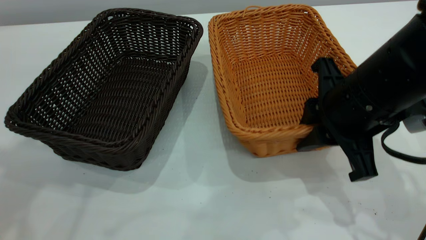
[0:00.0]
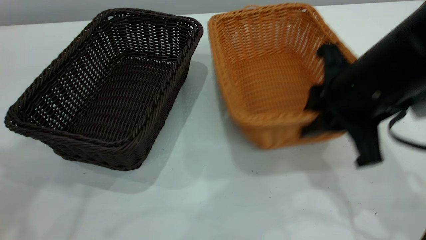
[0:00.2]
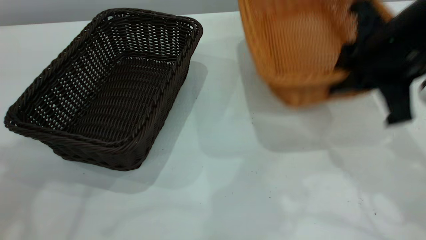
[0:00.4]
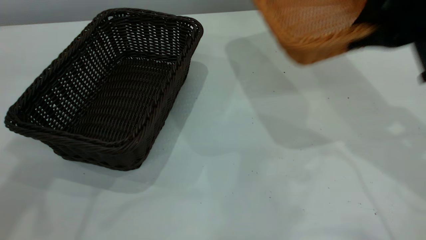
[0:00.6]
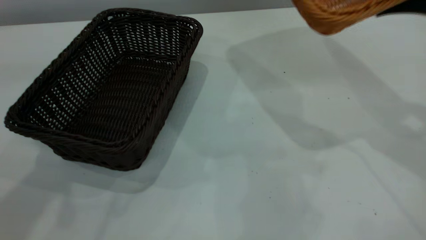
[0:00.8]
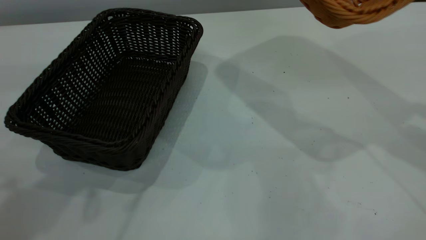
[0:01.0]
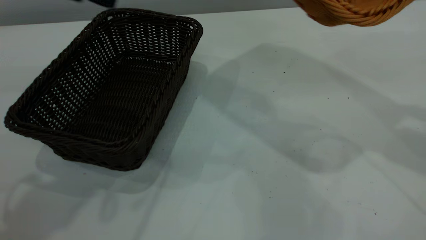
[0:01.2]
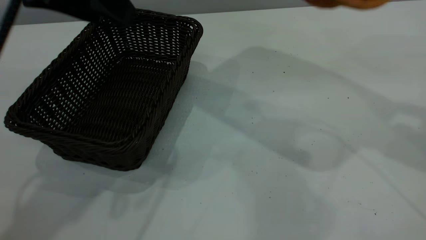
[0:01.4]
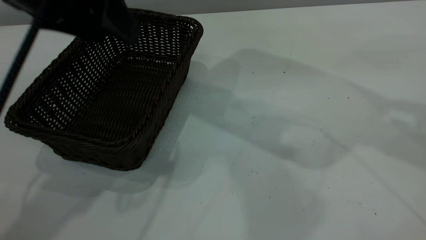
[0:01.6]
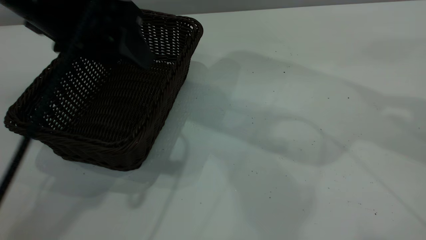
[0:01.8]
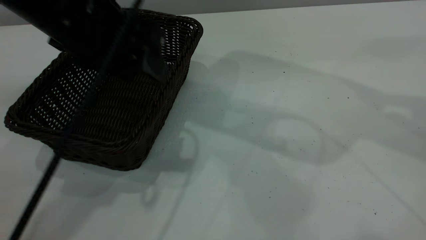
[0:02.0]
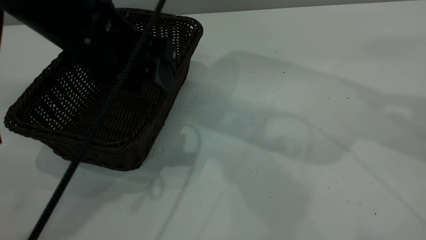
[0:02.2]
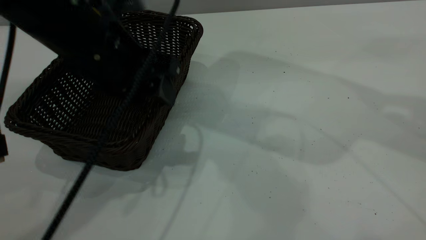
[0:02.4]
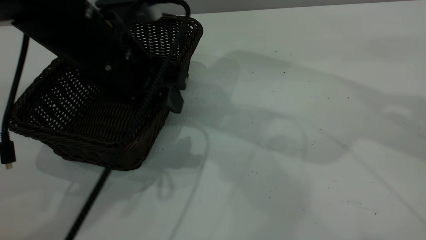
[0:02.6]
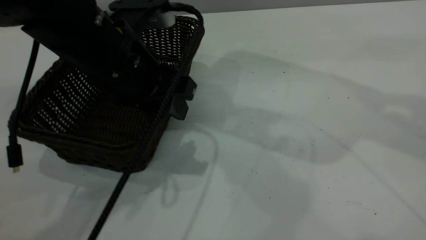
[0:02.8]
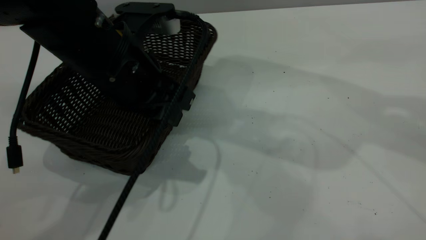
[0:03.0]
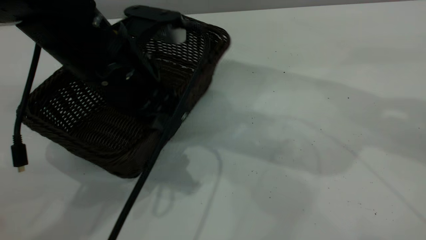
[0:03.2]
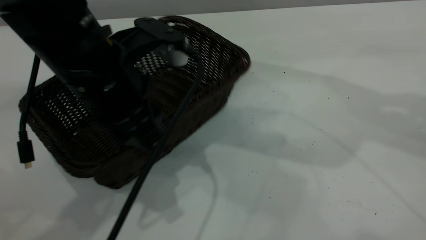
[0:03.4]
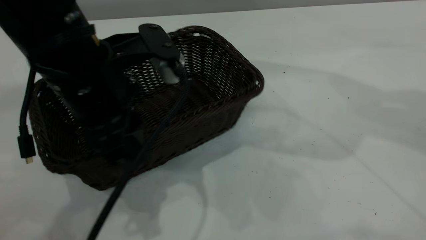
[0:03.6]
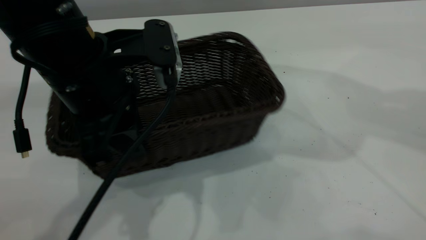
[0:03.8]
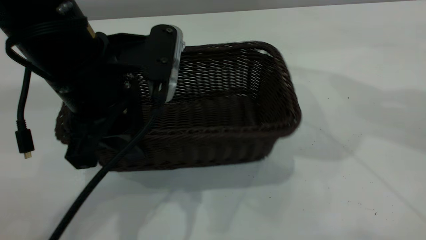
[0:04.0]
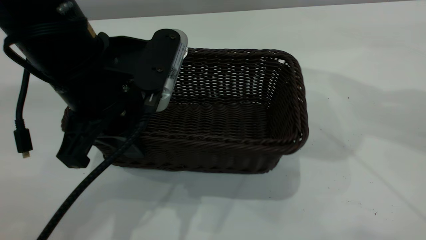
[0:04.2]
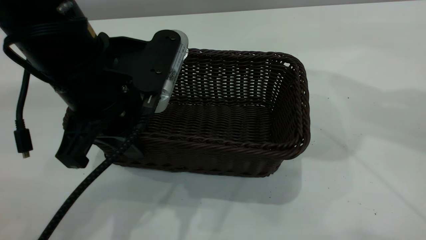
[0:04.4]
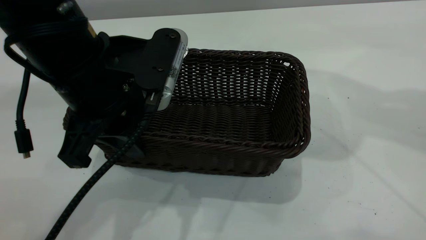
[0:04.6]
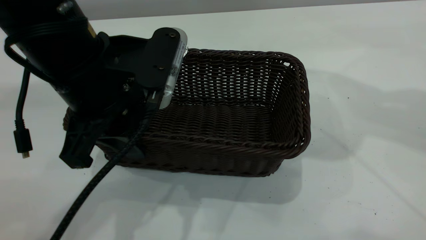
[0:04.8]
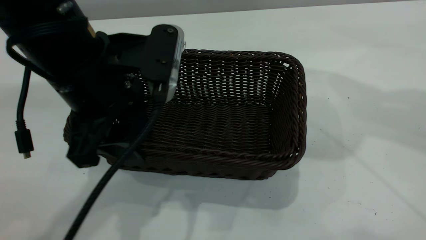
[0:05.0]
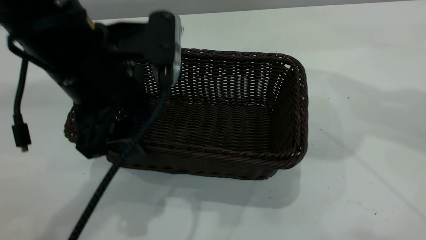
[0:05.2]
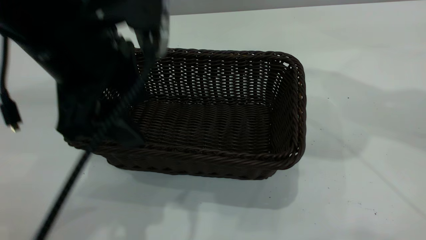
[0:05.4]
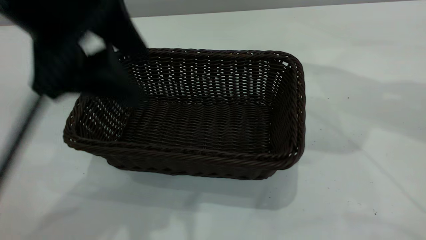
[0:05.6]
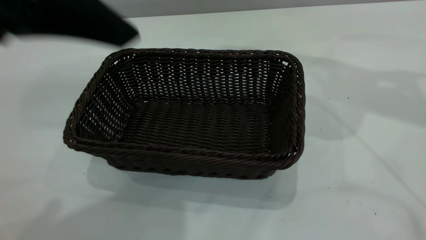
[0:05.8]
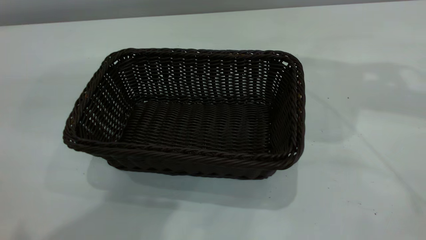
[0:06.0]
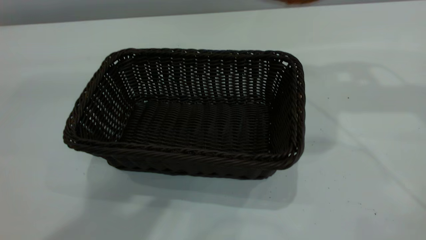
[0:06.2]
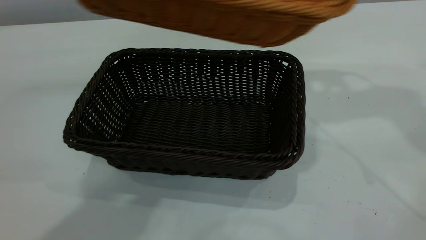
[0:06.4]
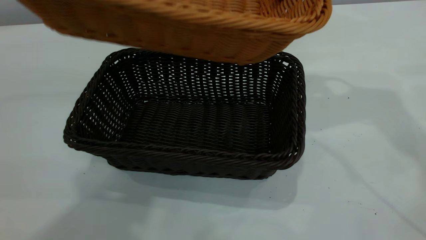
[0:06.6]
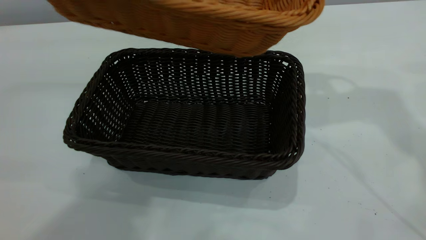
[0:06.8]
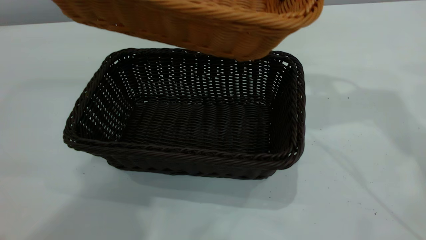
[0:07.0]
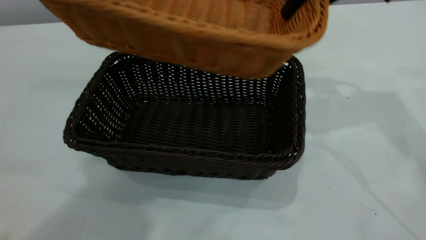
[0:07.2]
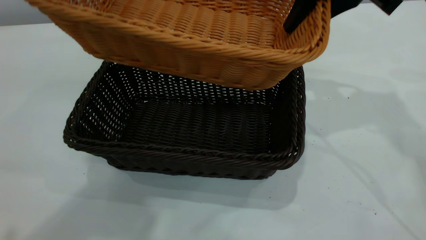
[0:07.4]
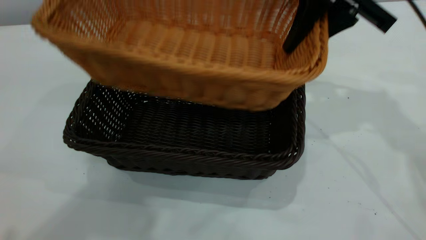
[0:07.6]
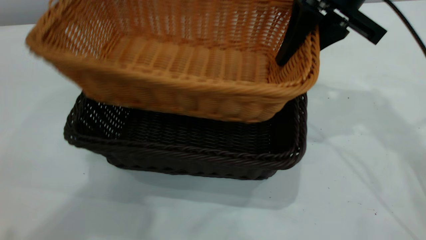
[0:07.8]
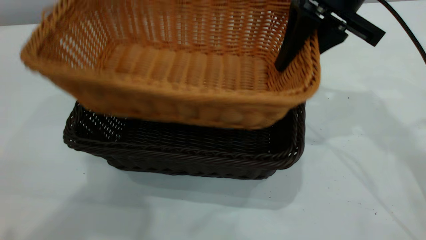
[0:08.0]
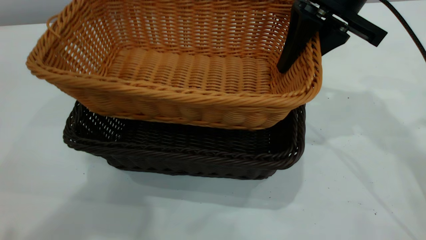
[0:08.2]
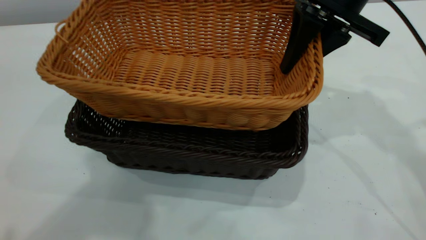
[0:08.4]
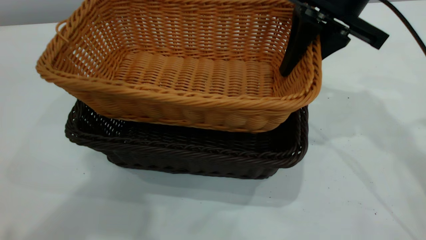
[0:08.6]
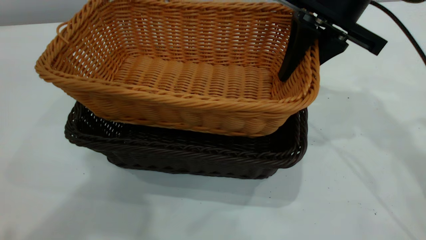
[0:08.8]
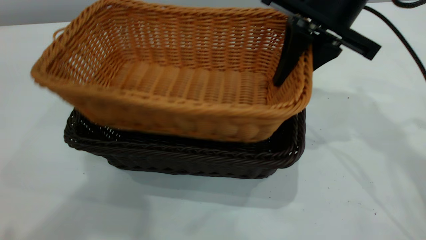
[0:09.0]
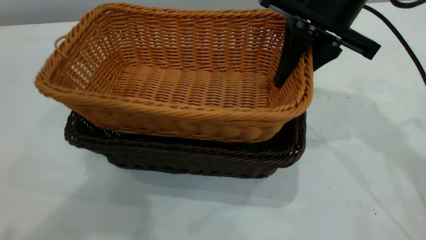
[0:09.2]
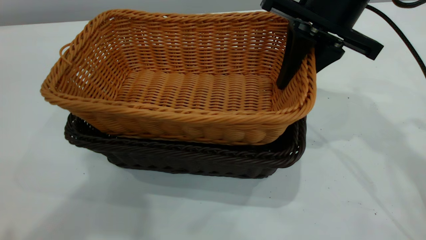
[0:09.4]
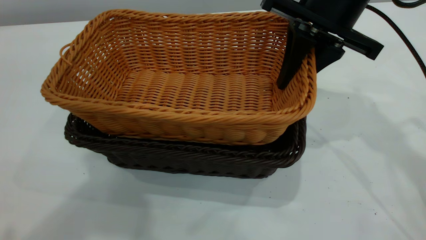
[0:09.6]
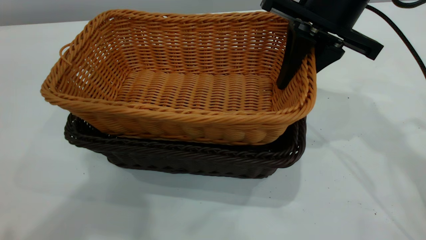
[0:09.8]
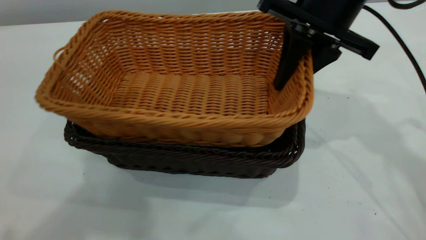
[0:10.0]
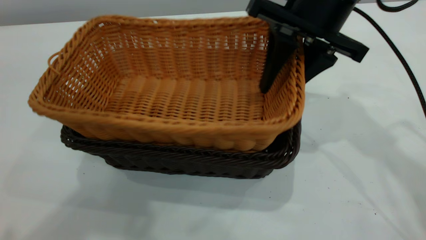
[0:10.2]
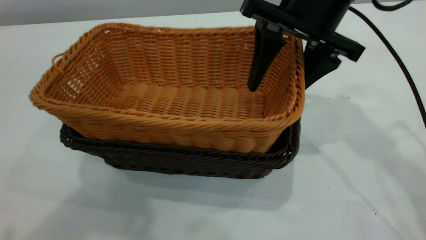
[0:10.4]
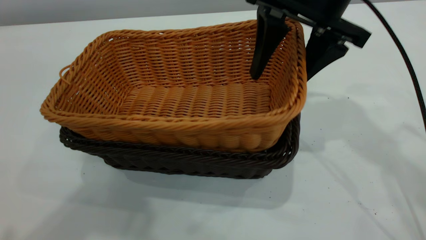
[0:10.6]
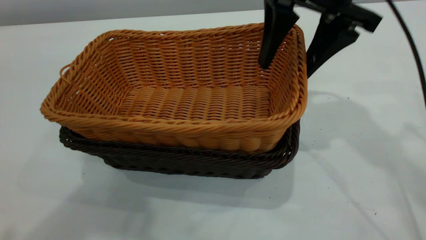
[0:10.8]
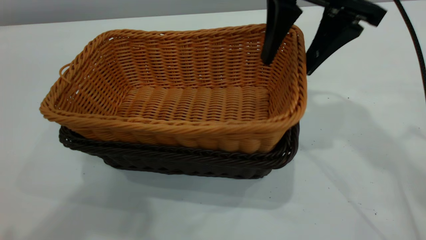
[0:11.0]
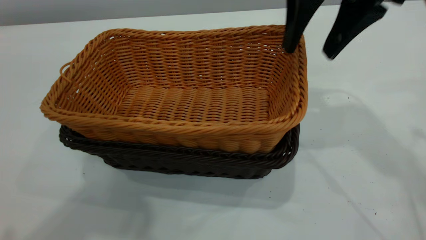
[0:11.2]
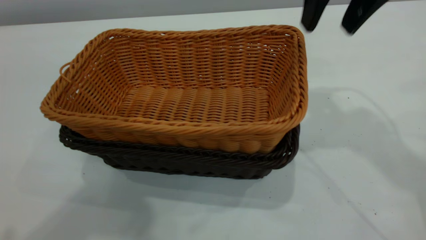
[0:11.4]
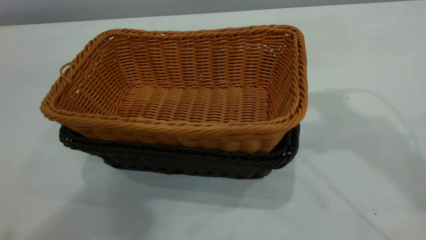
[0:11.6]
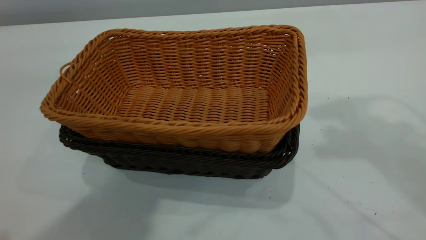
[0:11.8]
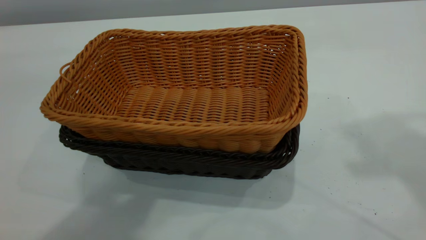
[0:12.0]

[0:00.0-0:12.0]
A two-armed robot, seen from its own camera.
Task of the whole recording: the left gripper grasp the black basket and place it in the center of the table, the right gripper grasp the brown basket and place it inside the black one.
Step, 0:00.4 to 0:05.6: Move the dark basket to the center of view.
Step, 0:05.8 to 0:11.2: Place the light basket on the dark basket.
0:00.0 to 0:01.6: The right gripper travels upward and to the right by approximately 20 cm, while the left gripper shifts some 15 cm downward and to the right.
0:01.6 to 0:03.0: The left gripper is displaced downward by roughly 10 cm, and closes its fingers.
0:04.4 to 0:06.0: The left gripper heads upward, covering some 20 cm, and opens its fingers. The right gripper is displaced forward by about 5 cm.
0:06.0 to 0:07.6: The right gripper moves downward and to the left, approximately 15 cm.
0:09.0 to 0:10.4: The right gripper opens.
0:10.4 to 0:12.0: The right gripper heads upward, backward and to the right, covering roughly 30 cm.

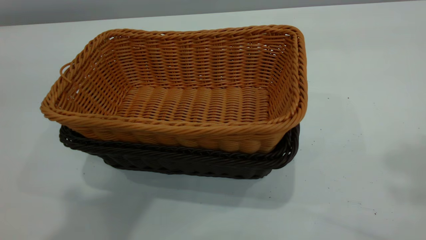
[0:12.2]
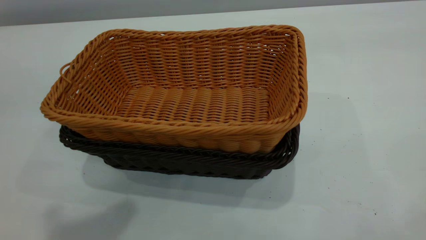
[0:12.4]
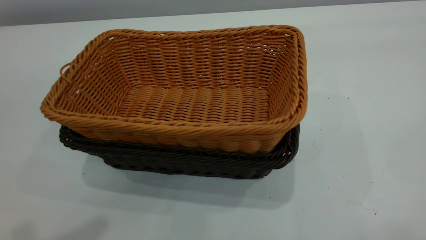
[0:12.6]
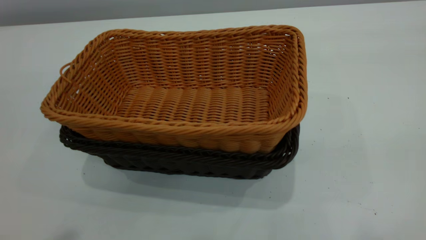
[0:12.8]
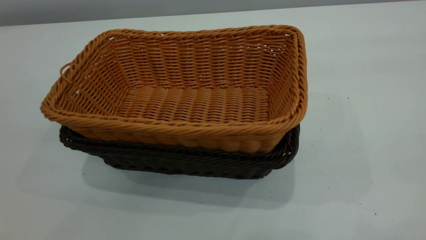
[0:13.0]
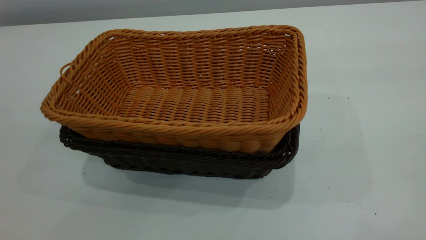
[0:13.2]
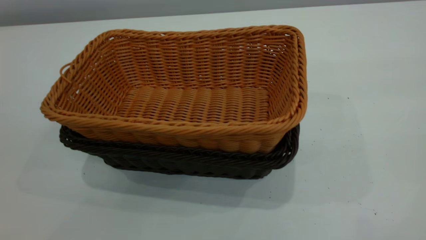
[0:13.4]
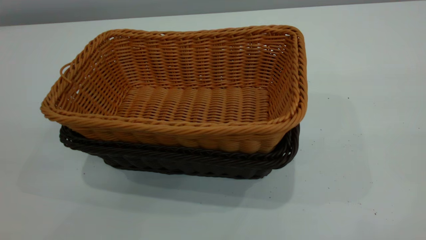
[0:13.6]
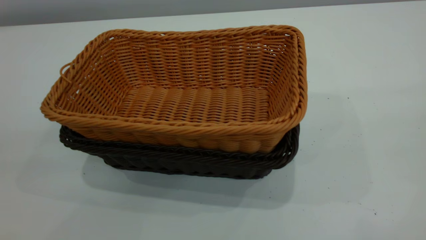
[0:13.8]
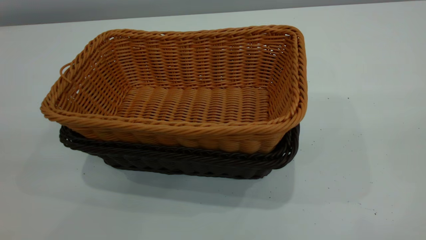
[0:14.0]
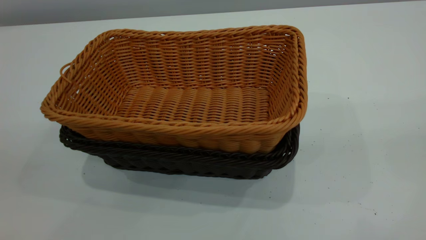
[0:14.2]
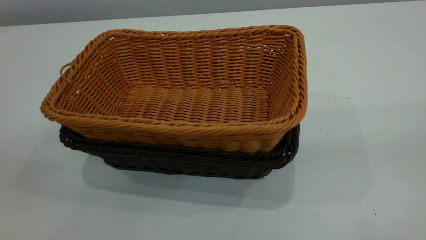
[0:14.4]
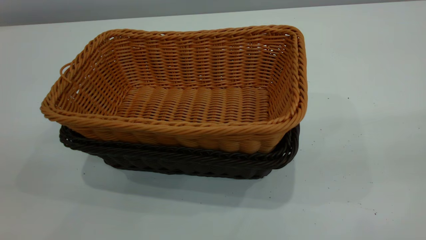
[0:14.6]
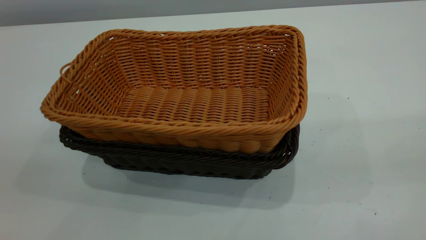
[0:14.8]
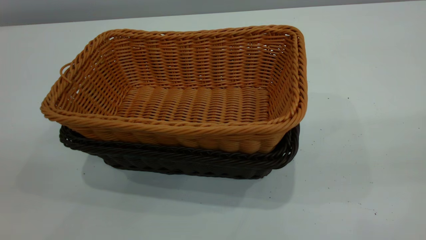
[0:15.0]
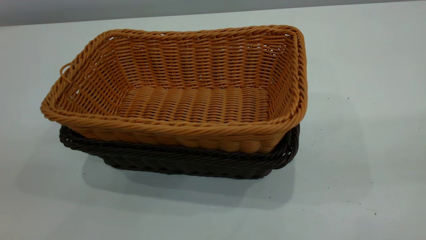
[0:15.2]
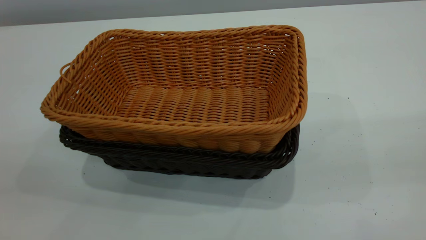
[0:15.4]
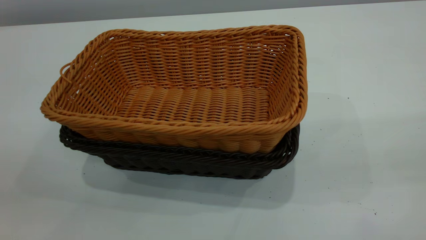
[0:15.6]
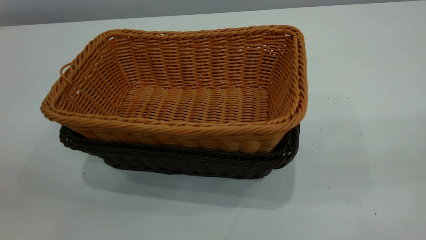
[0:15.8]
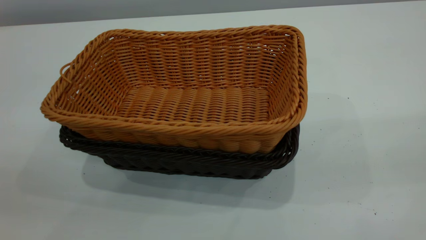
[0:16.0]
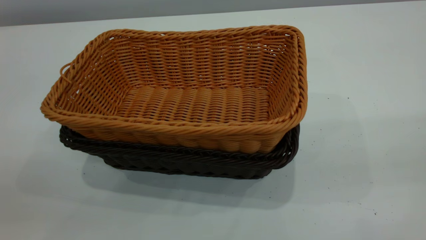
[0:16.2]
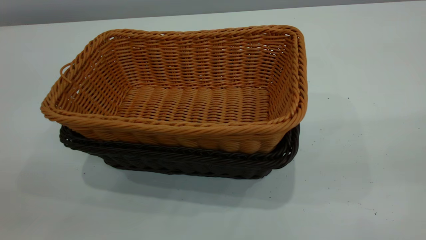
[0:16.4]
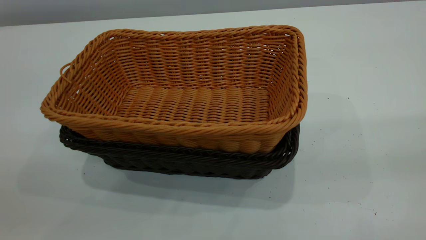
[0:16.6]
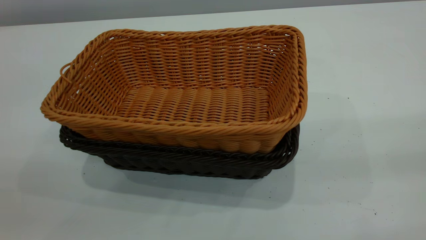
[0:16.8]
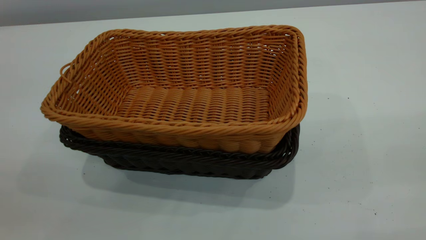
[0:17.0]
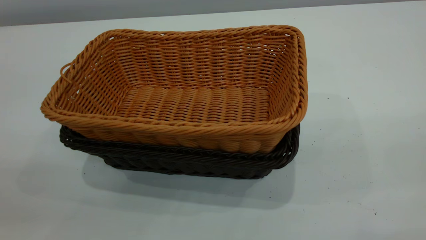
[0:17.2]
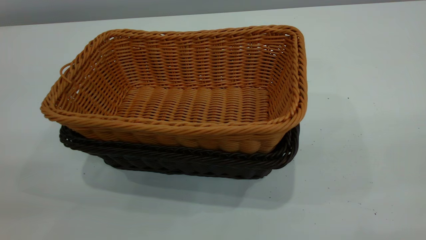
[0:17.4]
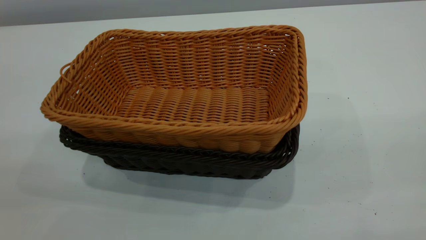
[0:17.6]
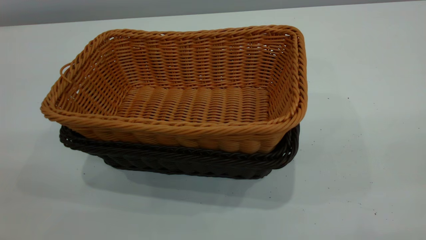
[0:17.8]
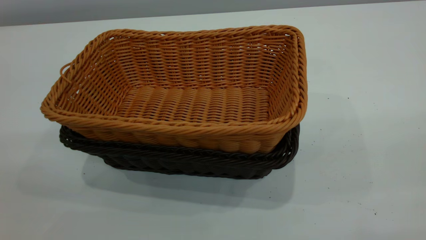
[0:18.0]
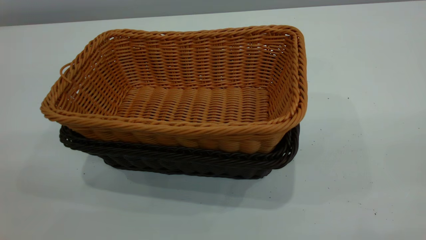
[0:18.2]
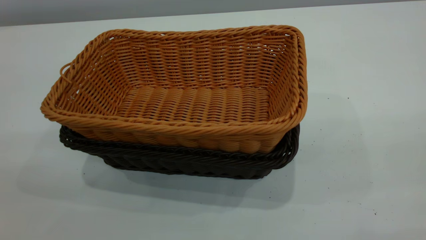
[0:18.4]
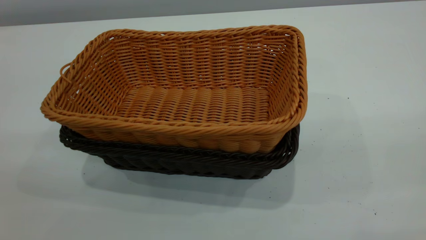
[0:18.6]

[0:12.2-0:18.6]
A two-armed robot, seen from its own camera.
Task of the whole recording: the left gripper grasp the black basket and place it in the center of the table, the right gripper grasp the brown basket and place it inside the black one.
0:12.2 to 0:13.8: The left gripper moves backward and to the left, about 15 cm.
